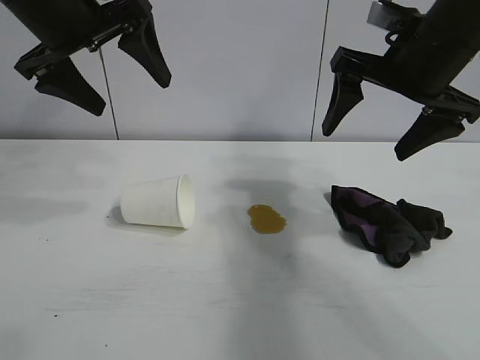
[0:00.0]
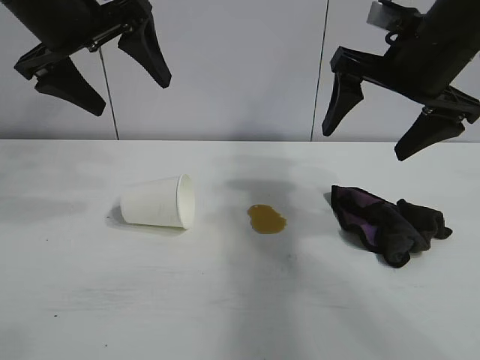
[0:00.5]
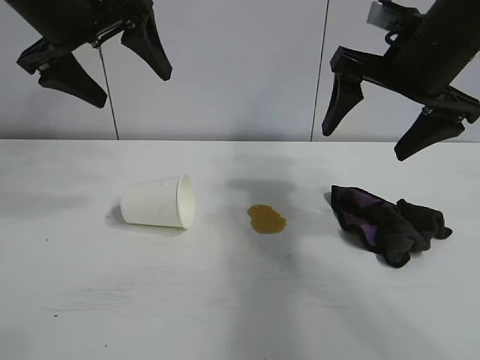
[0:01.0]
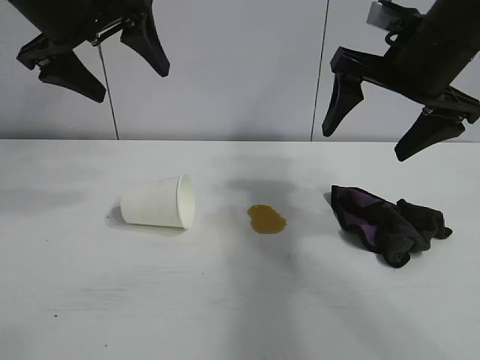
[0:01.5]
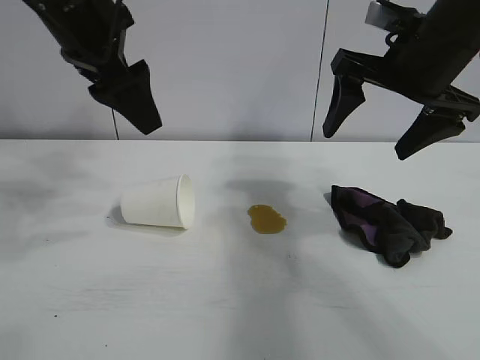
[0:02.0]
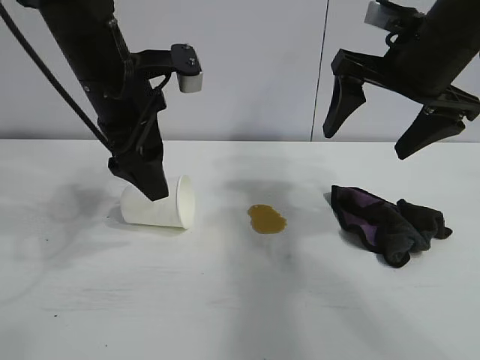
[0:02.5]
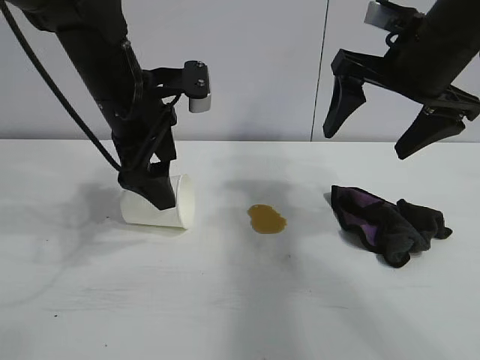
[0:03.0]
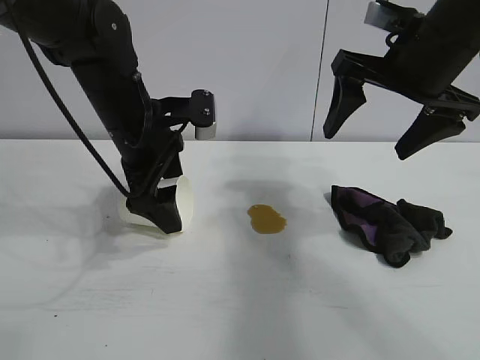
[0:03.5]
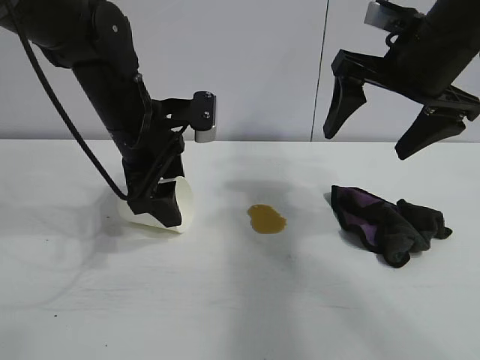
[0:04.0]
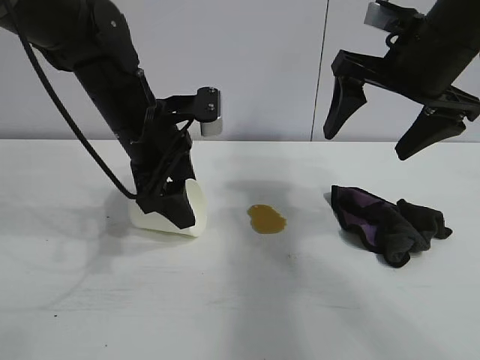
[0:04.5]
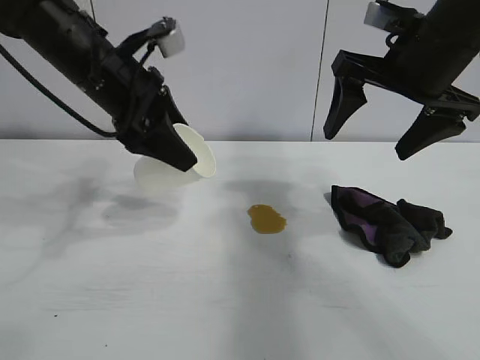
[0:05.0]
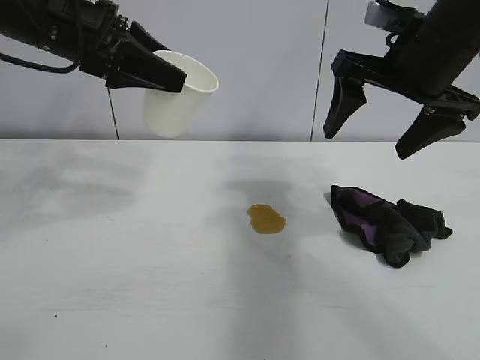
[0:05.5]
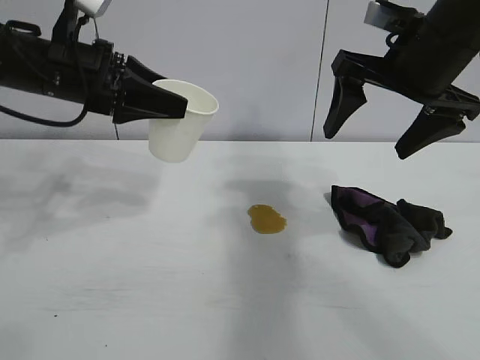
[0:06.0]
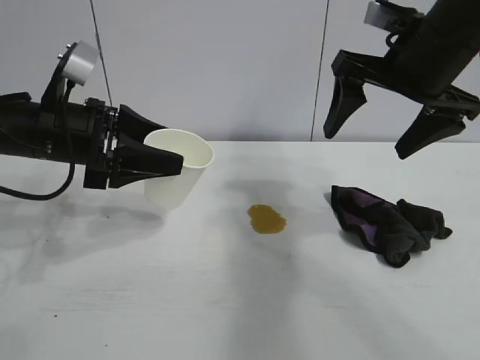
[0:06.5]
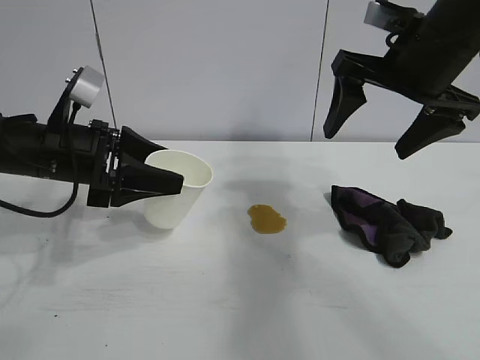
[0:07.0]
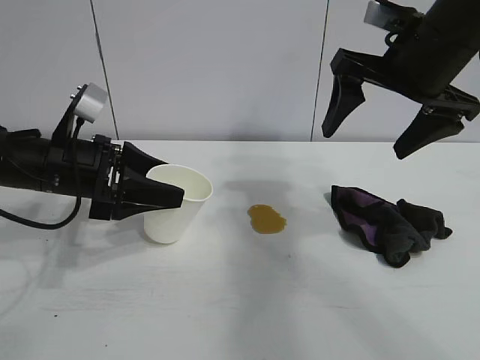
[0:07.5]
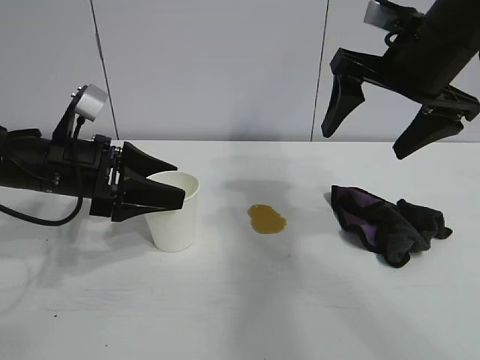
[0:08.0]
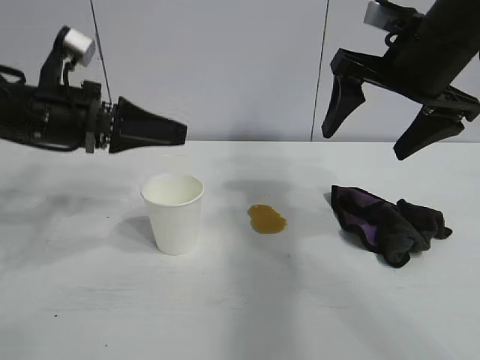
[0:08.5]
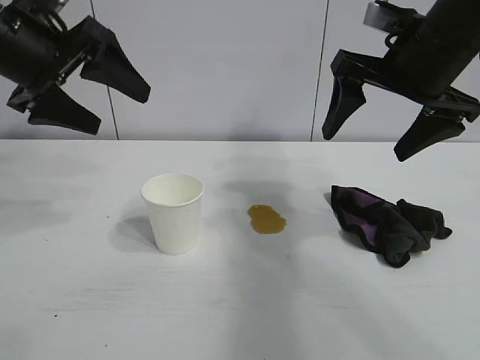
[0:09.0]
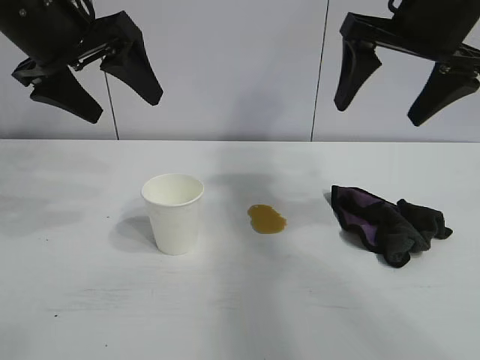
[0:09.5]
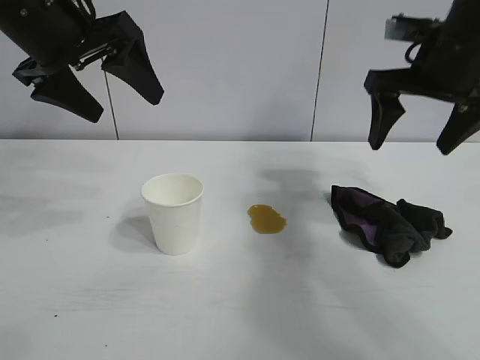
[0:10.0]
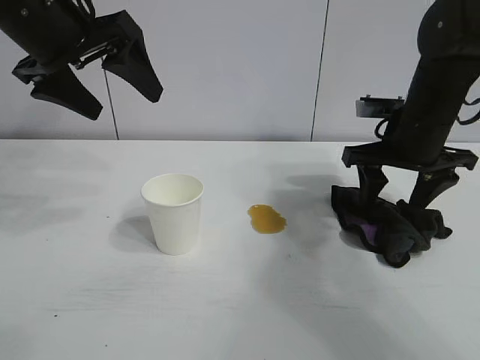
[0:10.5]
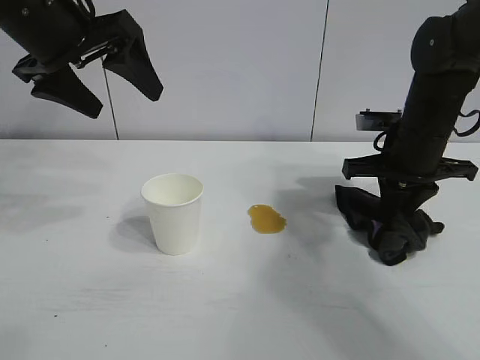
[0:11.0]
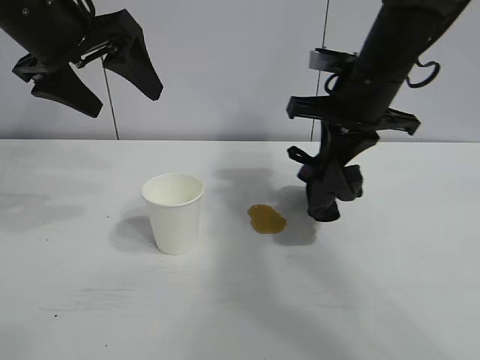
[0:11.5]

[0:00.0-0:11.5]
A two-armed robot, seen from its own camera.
Task of the whole recording: the left gripper pick up the fallen cup and place it upright, the right gripper grasp the black rag and wipe the stain on the table, the right gripper put the black rag back in its original position.
Step, 0:01.0 to 0:03.5: Grasp the paper cup with left gripper.
Step, 0:04.0 to 0:07.5: Stand the paper cup upright with left gripper.
Step, 0:08.5 to 0:10.5: Grasp the rag with right gripper.

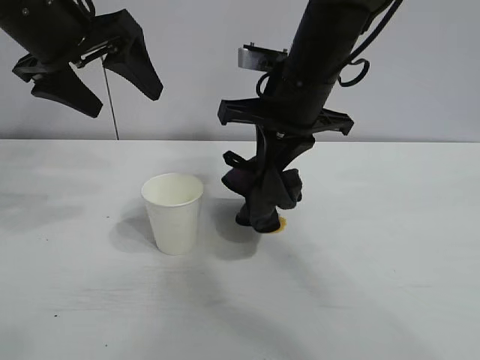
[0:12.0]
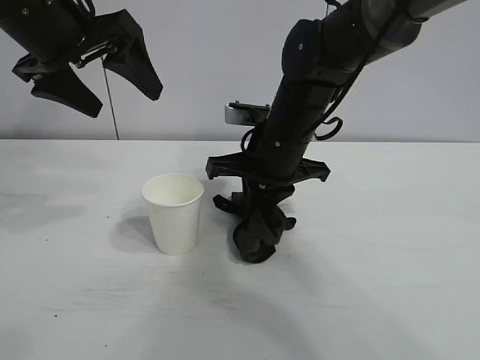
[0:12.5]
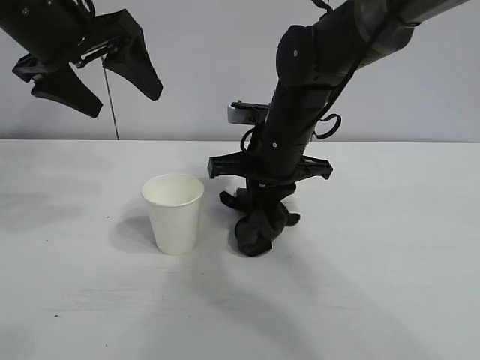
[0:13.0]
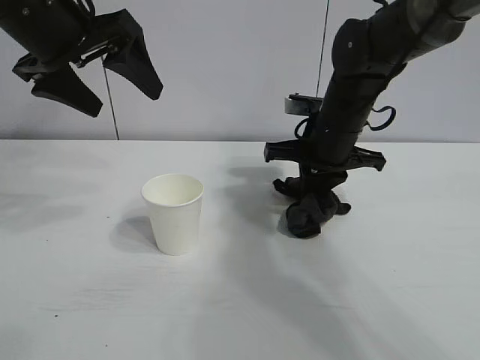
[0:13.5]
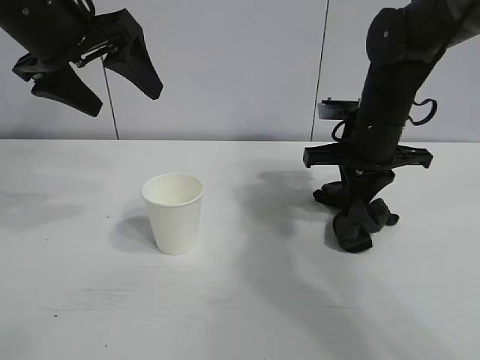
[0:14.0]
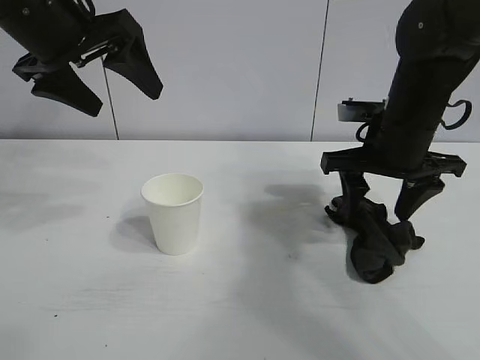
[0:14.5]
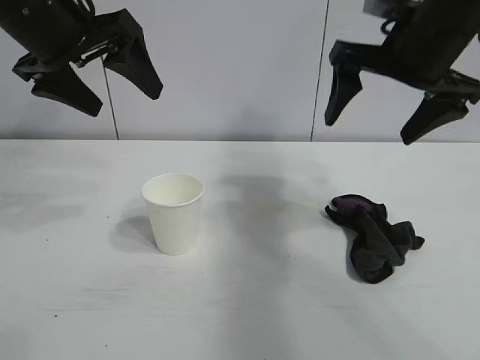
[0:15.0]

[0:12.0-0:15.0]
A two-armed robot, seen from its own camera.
Task of the whole recording: the left gripper pick up the fallen cup and place it upright, the right gripper grasp the black rag and wipe the stain on the table, the right gripper put the black rag back in its original position.
Step, 0:12.0 to 0:14.0: Wipe the stains off the table with the rag with right gripper.
